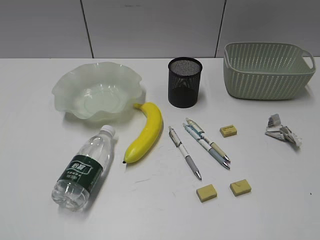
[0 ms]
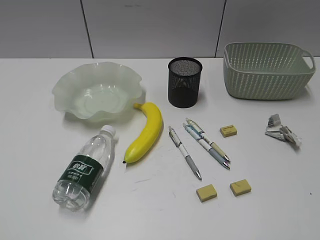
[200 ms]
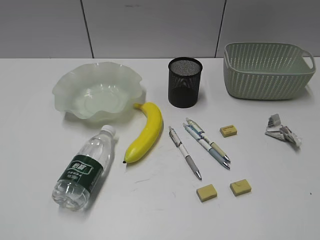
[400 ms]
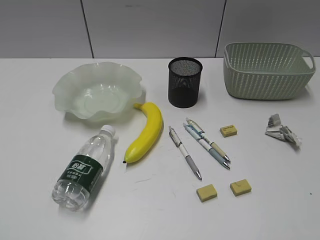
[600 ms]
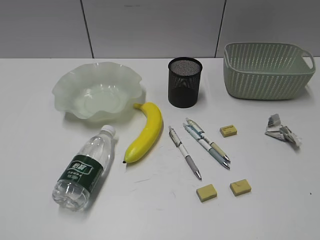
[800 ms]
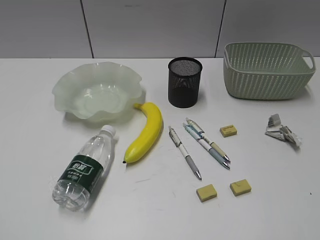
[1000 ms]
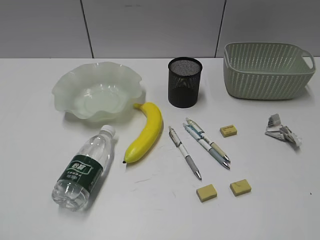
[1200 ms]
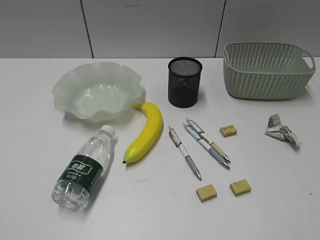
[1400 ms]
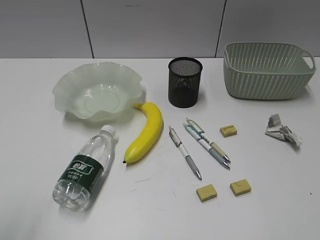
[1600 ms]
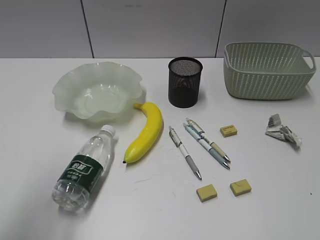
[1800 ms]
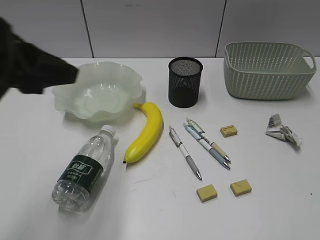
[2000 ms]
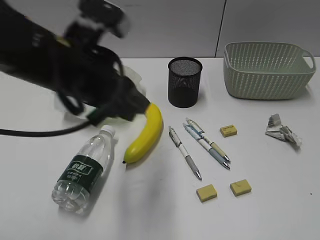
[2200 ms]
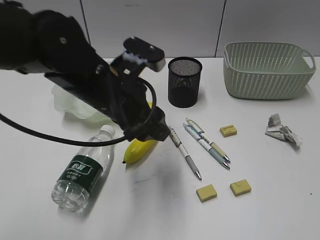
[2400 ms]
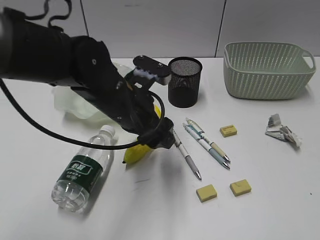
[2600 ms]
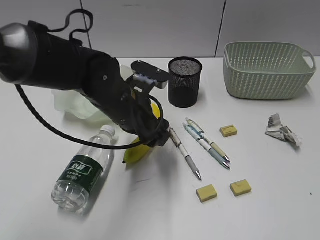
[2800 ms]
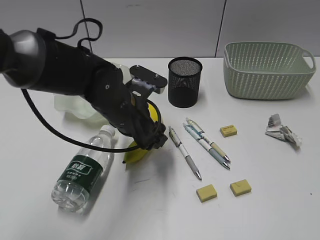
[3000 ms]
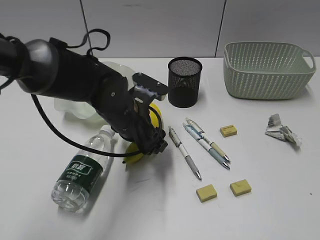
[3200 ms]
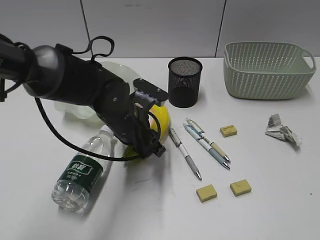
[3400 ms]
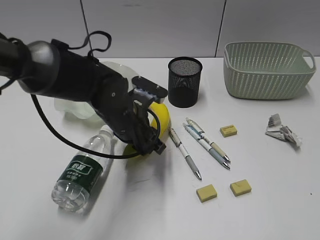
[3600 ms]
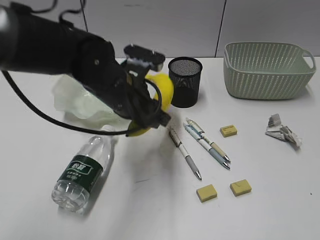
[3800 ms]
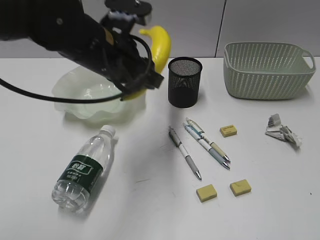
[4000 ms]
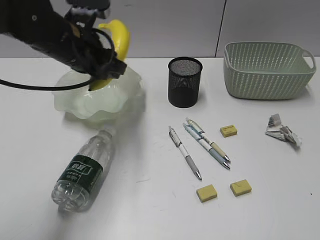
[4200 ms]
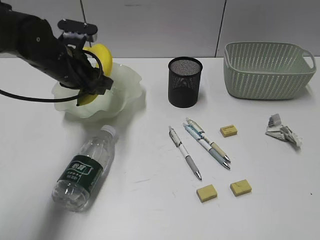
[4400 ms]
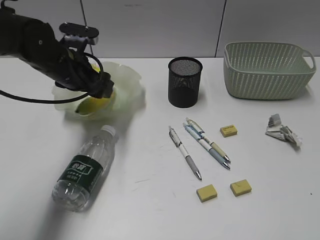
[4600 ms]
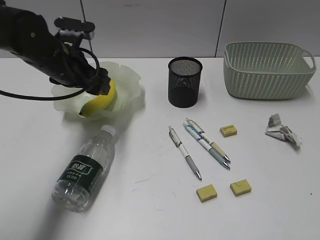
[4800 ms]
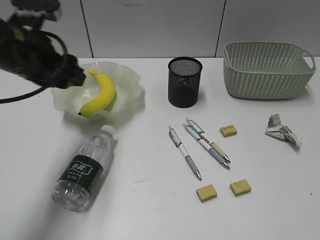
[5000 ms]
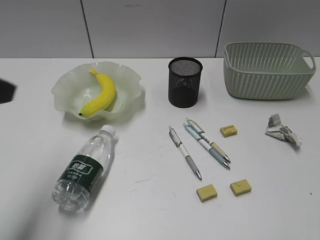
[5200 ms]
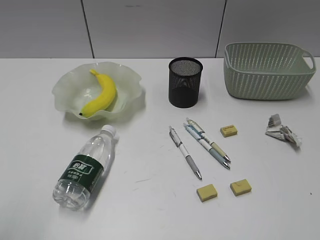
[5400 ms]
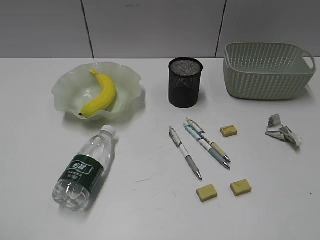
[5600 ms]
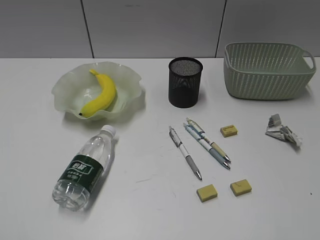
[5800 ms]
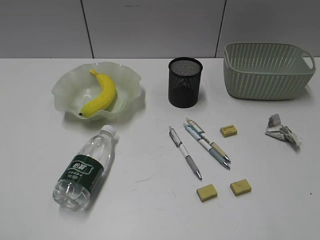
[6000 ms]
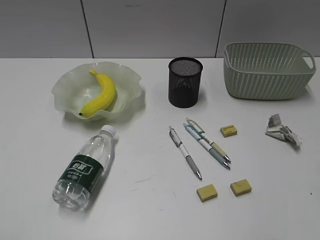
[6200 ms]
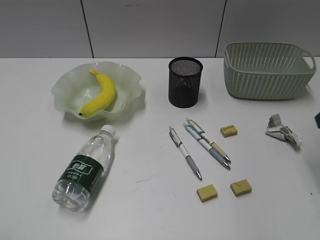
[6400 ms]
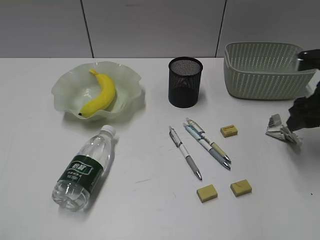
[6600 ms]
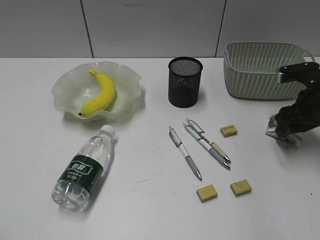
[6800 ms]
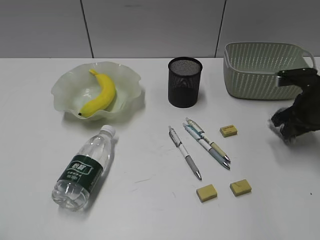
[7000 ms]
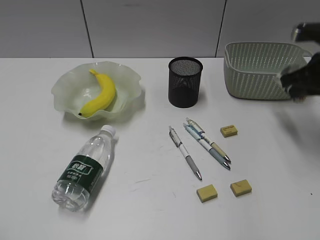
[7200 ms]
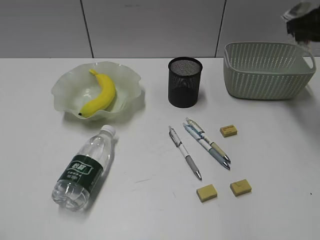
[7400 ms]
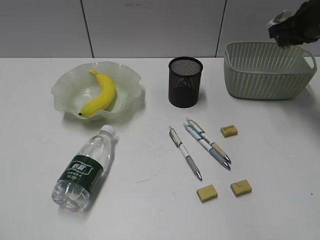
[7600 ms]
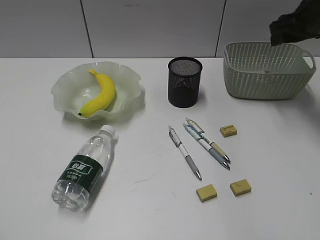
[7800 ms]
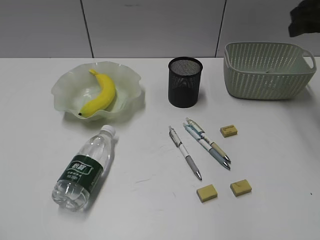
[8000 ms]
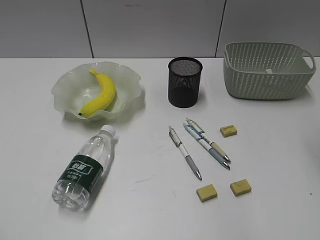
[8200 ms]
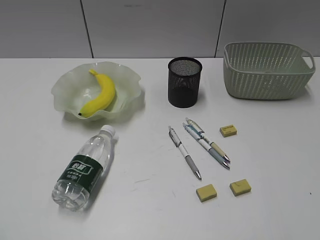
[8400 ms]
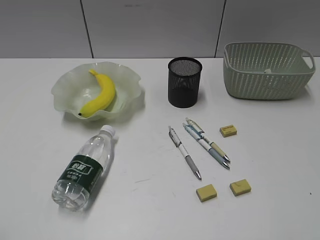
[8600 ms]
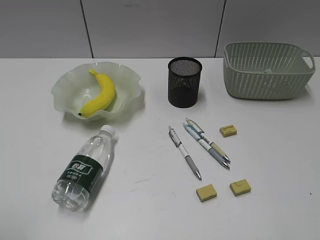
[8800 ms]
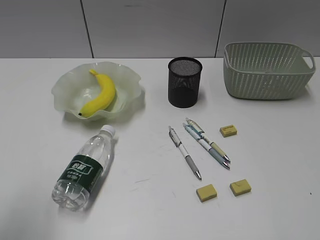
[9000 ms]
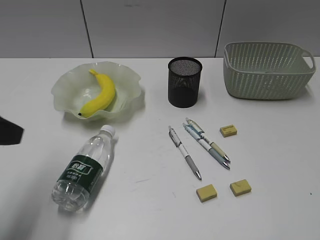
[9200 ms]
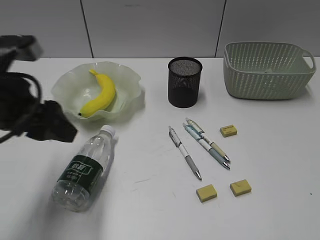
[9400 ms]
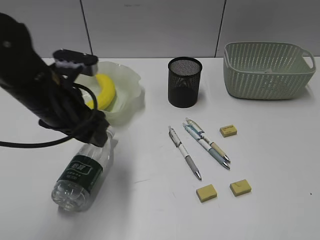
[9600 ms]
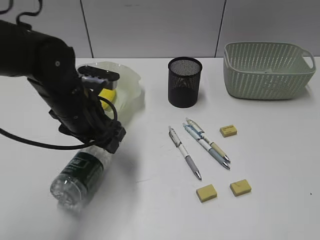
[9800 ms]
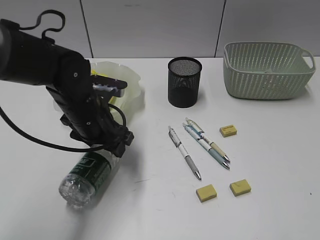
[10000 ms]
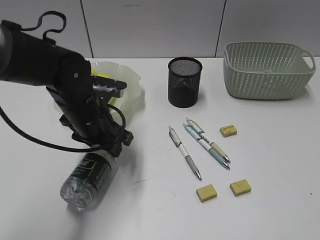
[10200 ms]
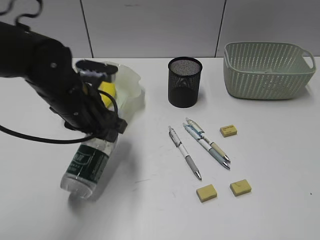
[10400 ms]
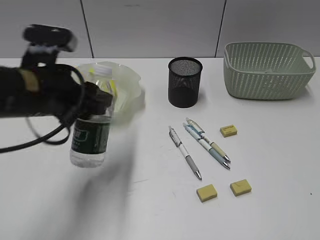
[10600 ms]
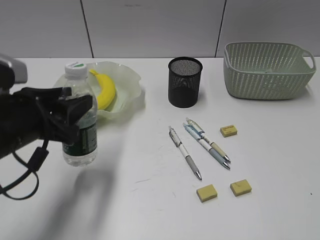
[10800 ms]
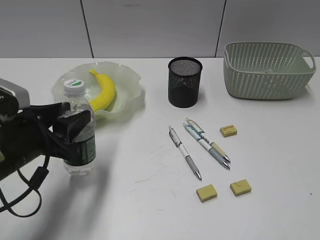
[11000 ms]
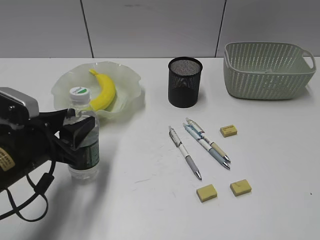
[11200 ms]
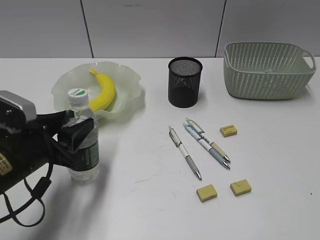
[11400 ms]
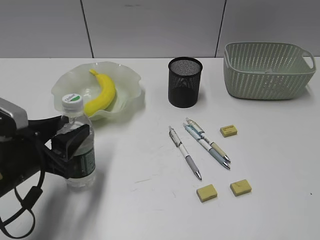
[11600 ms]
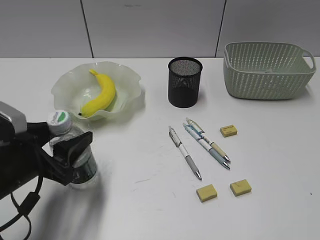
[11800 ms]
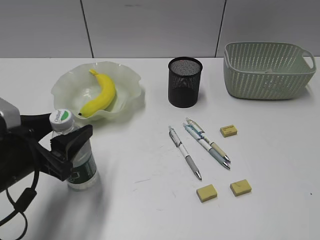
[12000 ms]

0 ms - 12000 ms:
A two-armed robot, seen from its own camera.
Step, 1400 ms - 3400 ms: Grasp the banana with left gripper.
Step, 3600 ms - 4800 ms: Place the banana in the plate with left gripper.
Step, 5000 ms - 7000 ms: Grasp the waste paper with right gripper.
Step, 7200 ms - 7800 ms: Place the waste paper in the basket with right gripper.
Step, 8000 ms - 10200 ms: Grasp the bottle with left gripper.
1600 ms - 3000 ms: The left gripper moves forward, to the right and downward, about 40 cm, and opens its fingers.
3000 ms - 4400 ms: The left gripper travels to the left and forward by roughly 15 cm, goes upward and returns, some 10 cm each way, and closes its fingers.
4400 ms - 6000 ms: The left gripper shifts approximately 40 cm backward and to the left. Meanwhile the right gripper ends up approximately 5 cm from where it was.
6000 ms - 7600 ms: The right gripper goes some 40 cm forward, and closes its fingers.
7600 ms - 9000 ms: The right gripper travels backward by approximately 40 cm, and opens up, while the left gripper goes about 10 cm forward.
9000 ms - 10400 ms: The left gripper moves forward, to the right and downward, approximately 30 cm.
10400 ms - 12000 ms: The left gripper travels backward and to the left by about 15 cm.

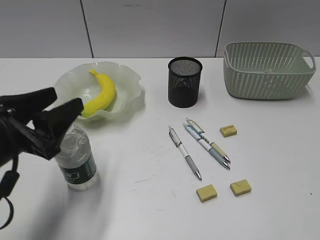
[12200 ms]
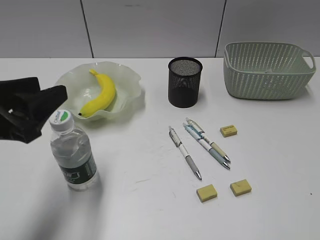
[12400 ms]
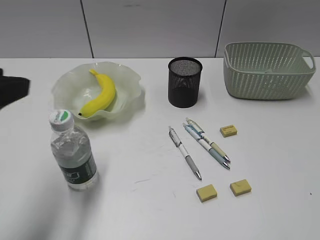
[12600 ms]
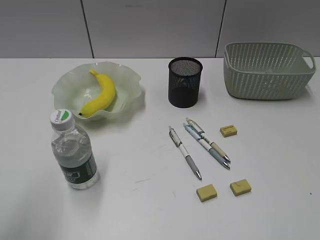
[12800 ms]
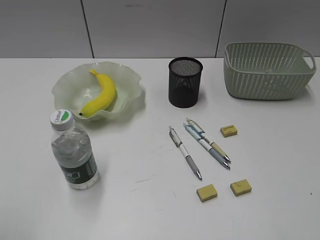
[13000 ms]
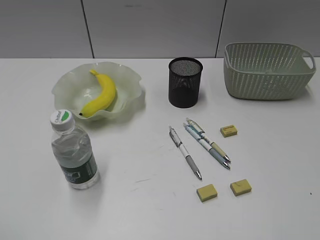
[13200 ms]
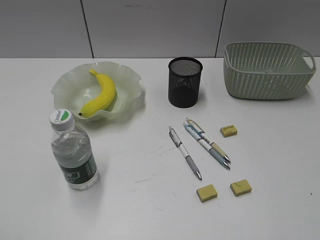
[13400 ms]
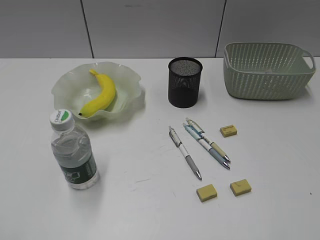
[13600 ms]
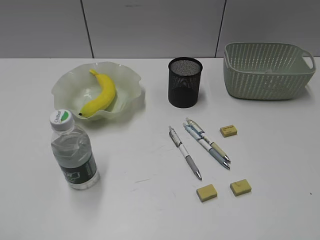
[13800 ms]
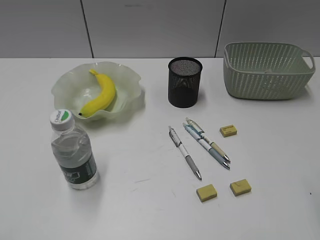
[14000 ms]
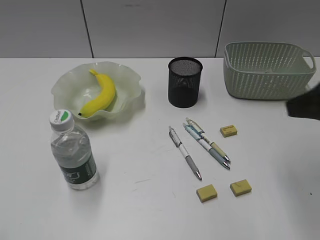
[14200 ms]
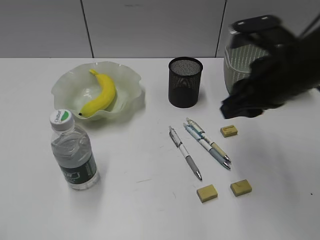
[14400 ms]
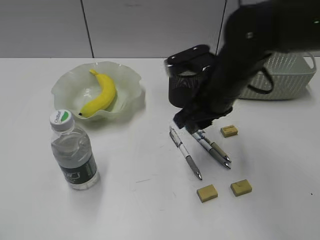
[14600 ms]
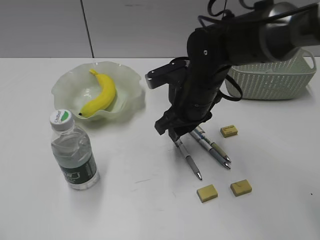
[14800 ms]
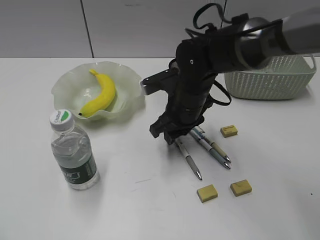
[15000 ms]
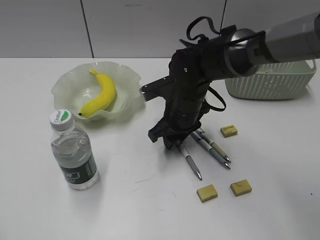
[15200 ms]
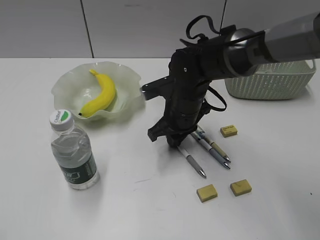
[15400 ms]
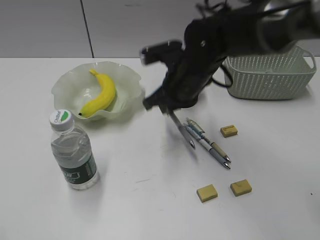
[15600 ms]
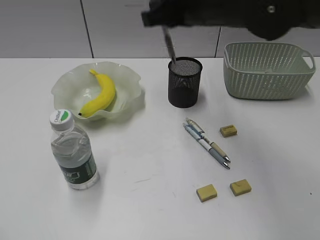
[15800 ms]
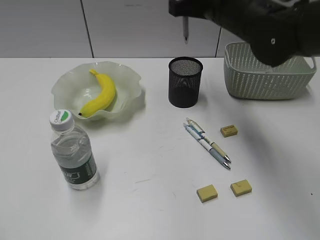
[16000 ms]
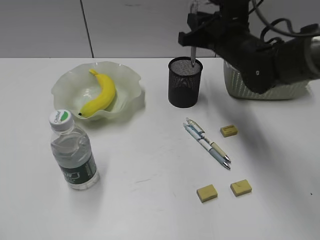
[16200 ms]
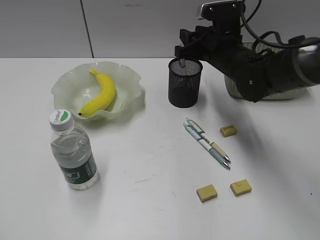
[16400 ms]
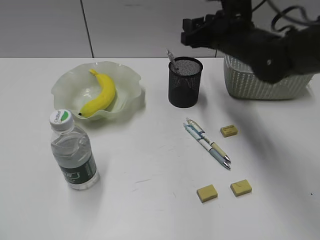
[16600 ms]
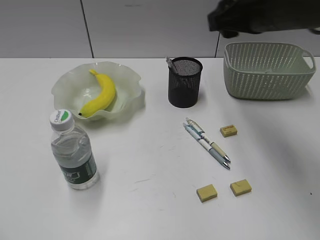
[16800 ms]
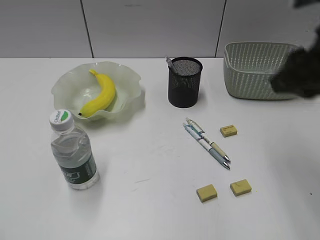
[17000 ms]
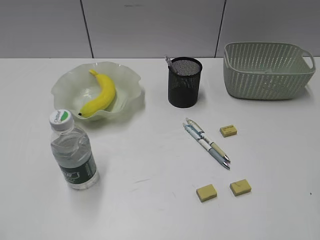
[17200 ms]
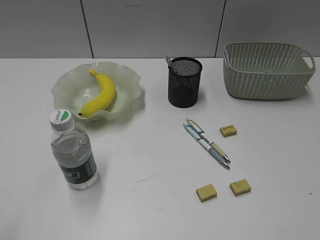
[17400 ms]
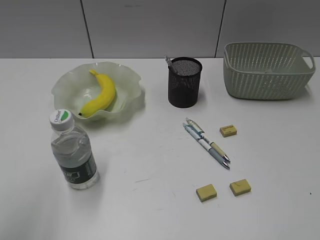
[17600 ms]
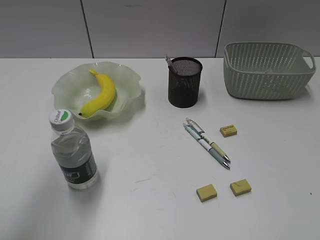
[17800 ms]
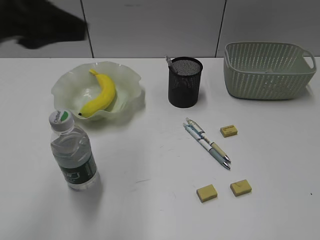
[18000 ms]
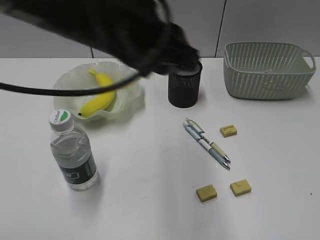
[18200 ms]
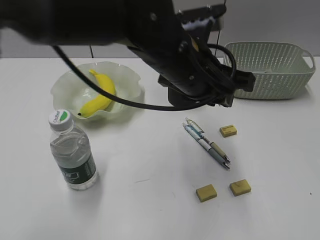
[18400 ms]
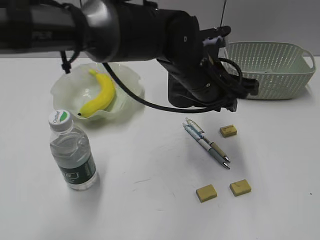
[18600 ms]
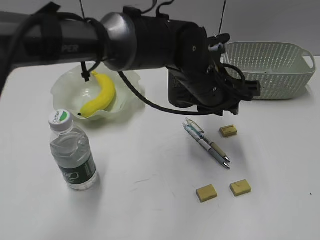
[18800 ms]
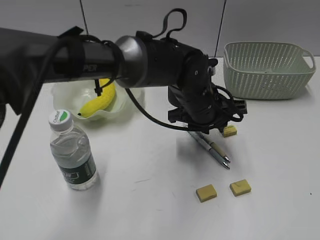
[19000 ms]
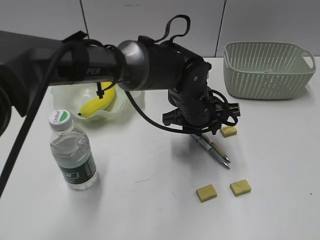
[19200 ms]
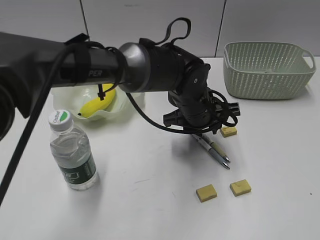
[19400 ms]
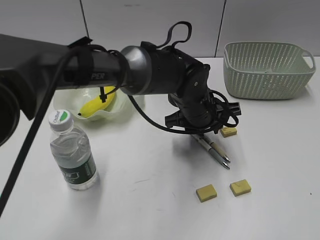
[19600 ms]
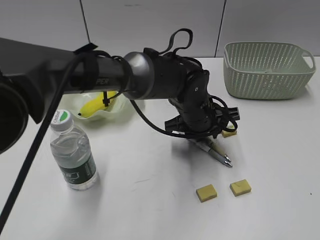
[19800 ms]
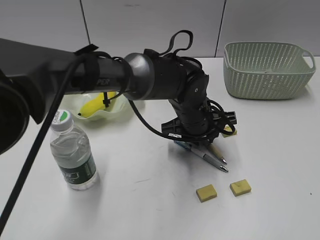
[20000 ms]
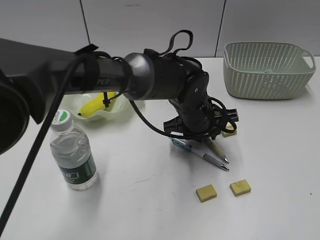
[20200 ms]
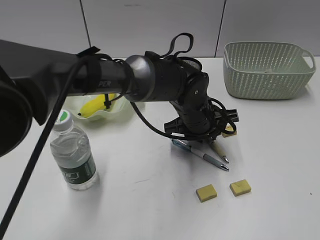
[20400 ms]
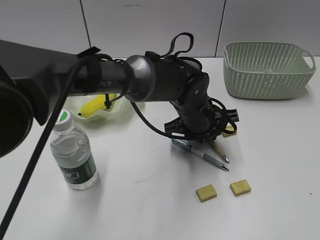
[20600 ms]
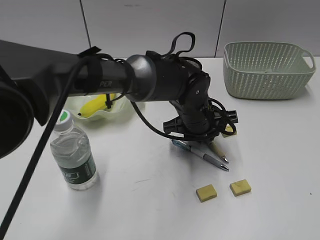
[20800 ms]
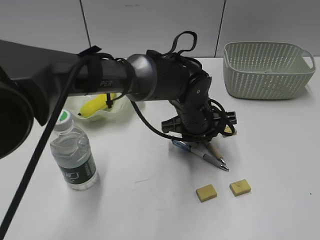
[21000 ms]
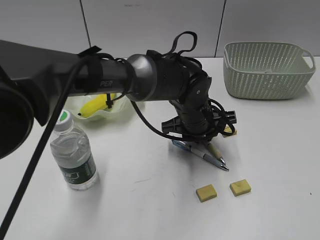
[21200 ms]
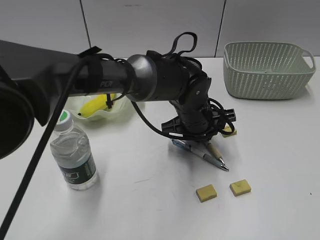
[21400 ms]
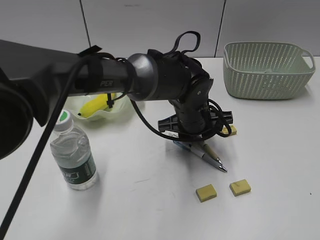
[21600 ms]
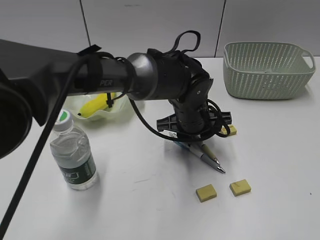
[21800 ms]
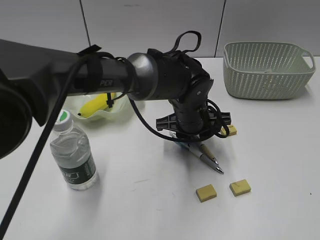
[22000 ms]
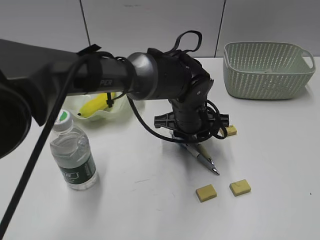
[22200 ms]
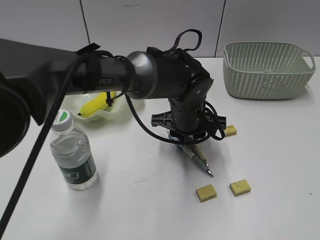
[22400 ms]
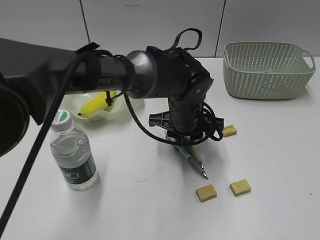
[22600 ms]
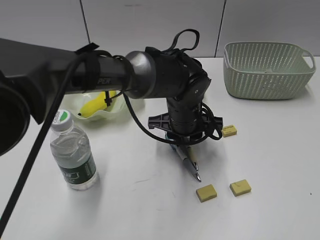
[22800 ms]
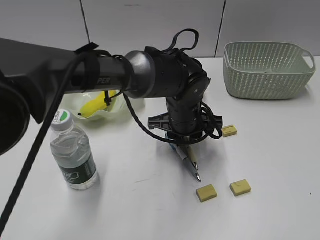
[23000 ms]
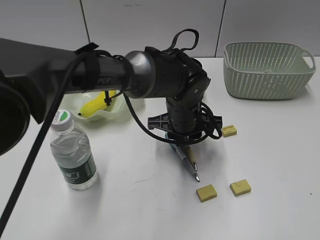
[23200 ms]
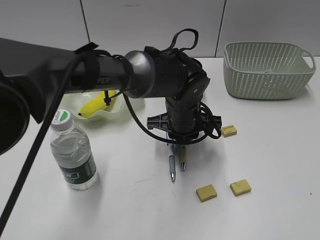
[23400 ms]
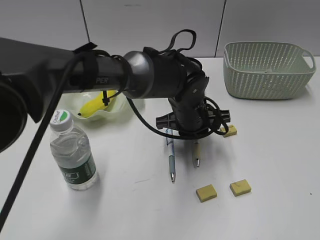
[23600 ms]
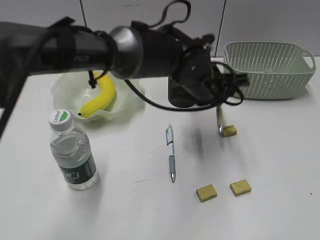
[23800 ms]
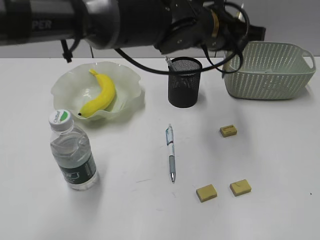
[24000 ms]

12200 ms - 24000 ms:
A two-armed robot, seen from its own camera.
Step, 12400 ms - 15400 ms: Grasp the gray pen with right gripper.
Step, 15600 ms - 16400 ms: Place the gray pen in pen holder with right gripper.
Step, 16600 ms - 23400 ms: Grasp the yellow pen with left gripper.
12200 ms - 13600 ms: The left gripper is displaced backward, upward and to the left by some 25 cm, and closes up.
13600 ms - 15200 ms: The right gripper shifts approximately 50 cm forward, to the left and downward.
15200 ms - 16600 ms: The right gripper shifts some 15 cm upward and to the right, and closes and opens again.
16600 ms - 18200 ms: The left gripper heads to the right and forward, covering some 35 cm. The right gripper shifts approximately 40 cm backward and to the right.
18200 ms - 19600 ms: The left gripper moves downward, to the right and forward, about 25 cm.
19600 ms - 22600 ms: There are only small adjustments of the grippers.
22600 ms - 24000 ms: The left gripper goes some 15 cm upward.
